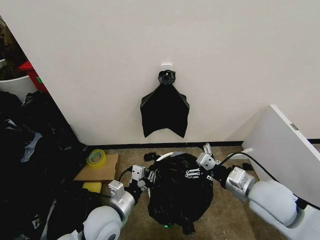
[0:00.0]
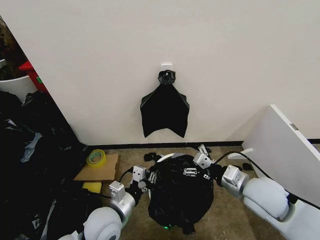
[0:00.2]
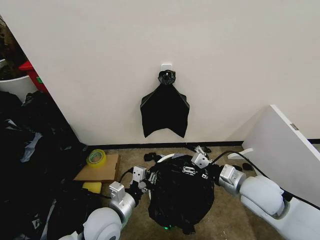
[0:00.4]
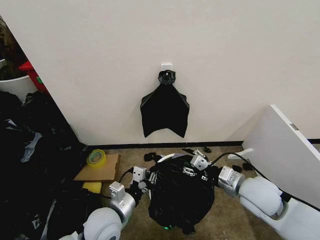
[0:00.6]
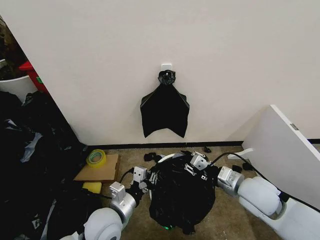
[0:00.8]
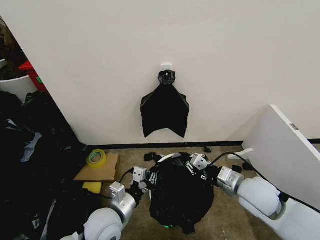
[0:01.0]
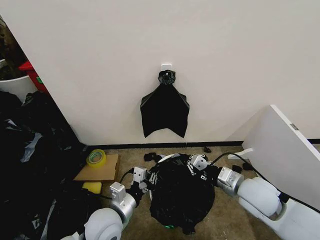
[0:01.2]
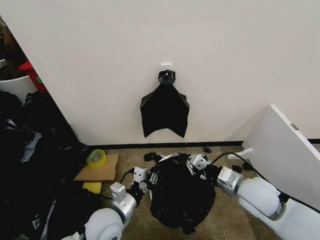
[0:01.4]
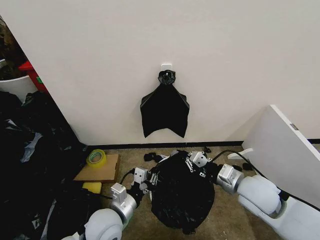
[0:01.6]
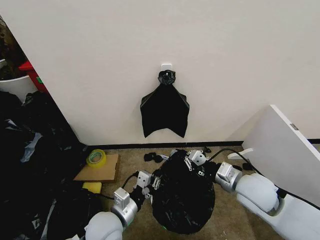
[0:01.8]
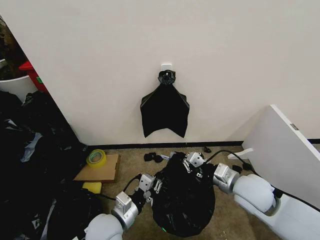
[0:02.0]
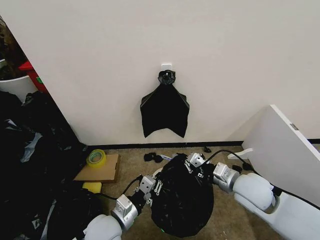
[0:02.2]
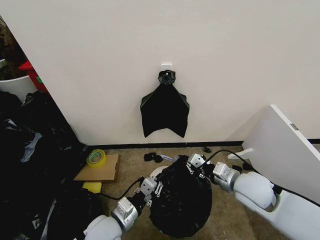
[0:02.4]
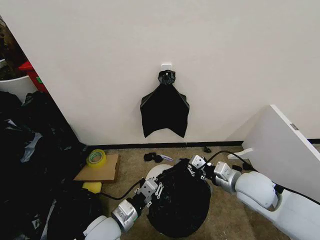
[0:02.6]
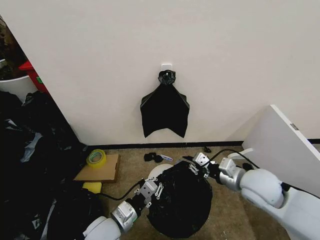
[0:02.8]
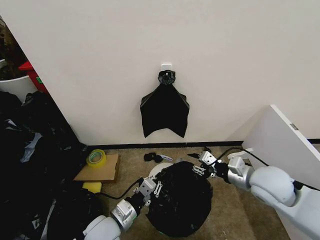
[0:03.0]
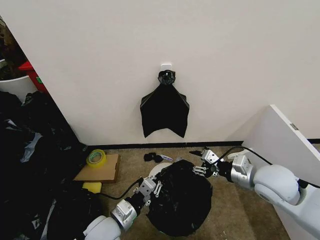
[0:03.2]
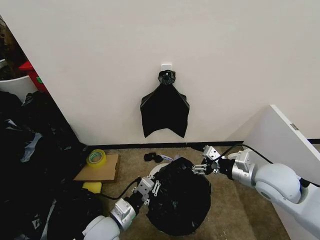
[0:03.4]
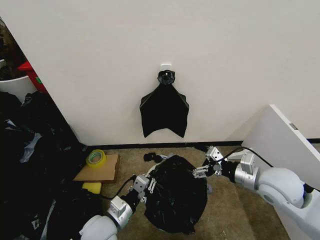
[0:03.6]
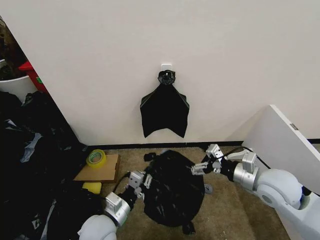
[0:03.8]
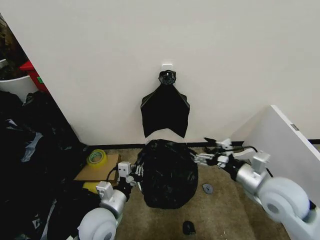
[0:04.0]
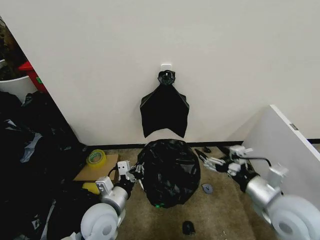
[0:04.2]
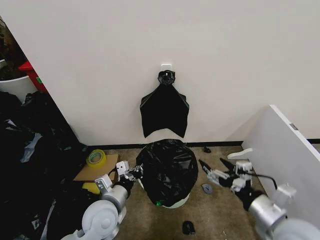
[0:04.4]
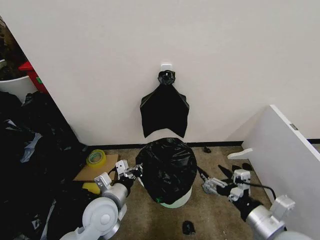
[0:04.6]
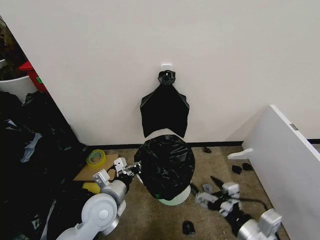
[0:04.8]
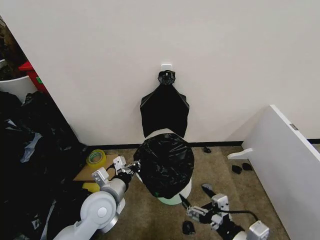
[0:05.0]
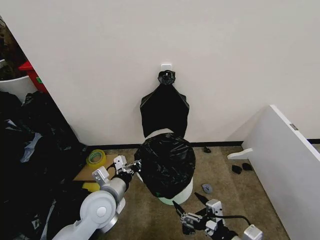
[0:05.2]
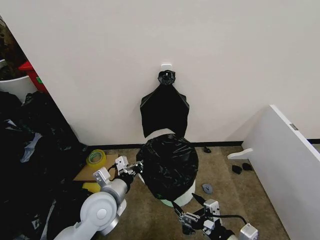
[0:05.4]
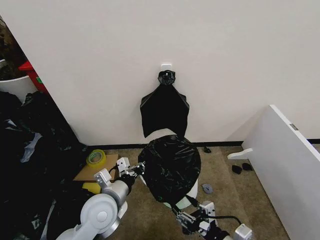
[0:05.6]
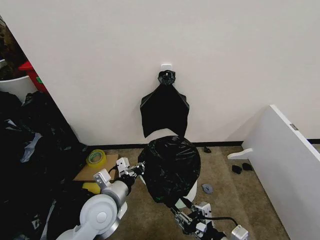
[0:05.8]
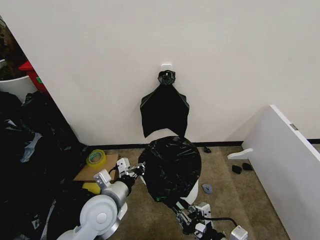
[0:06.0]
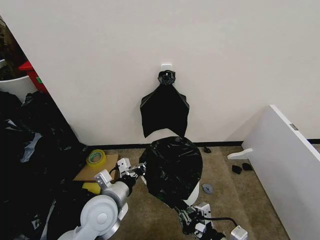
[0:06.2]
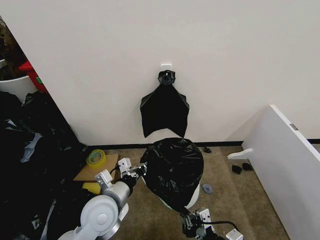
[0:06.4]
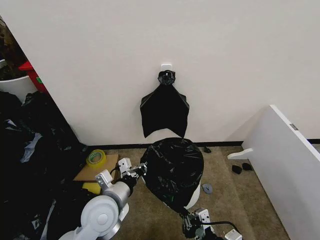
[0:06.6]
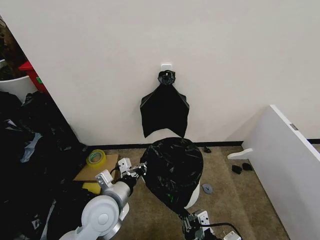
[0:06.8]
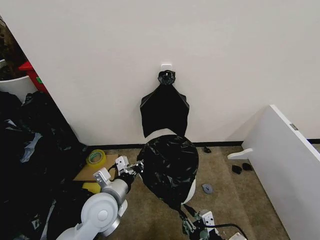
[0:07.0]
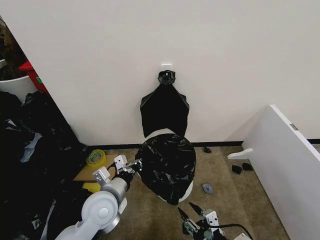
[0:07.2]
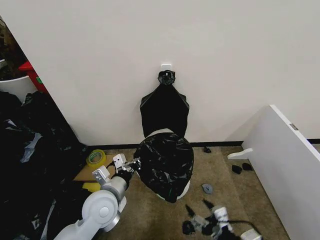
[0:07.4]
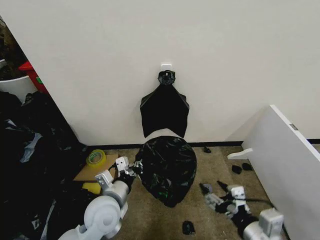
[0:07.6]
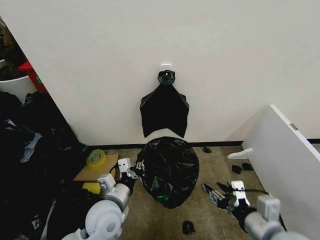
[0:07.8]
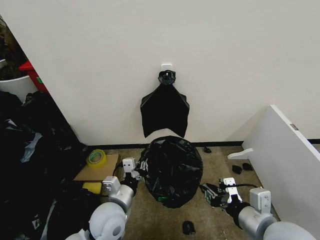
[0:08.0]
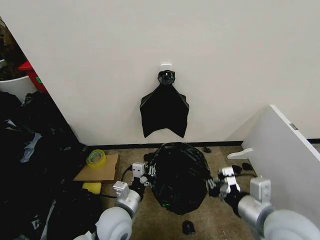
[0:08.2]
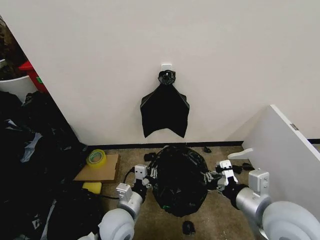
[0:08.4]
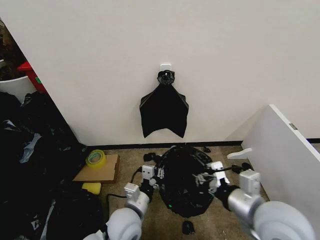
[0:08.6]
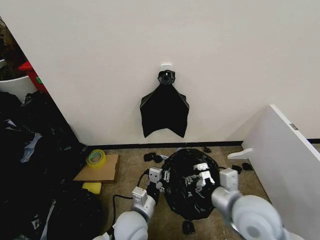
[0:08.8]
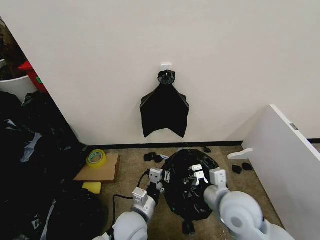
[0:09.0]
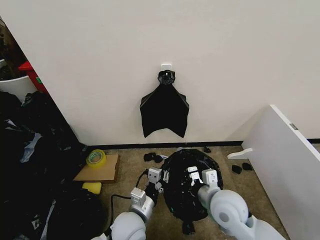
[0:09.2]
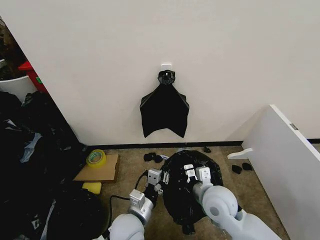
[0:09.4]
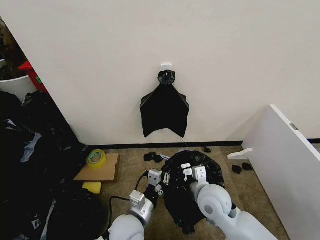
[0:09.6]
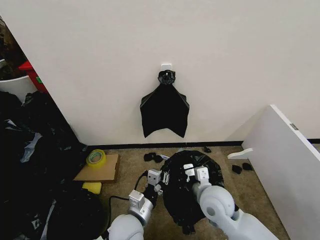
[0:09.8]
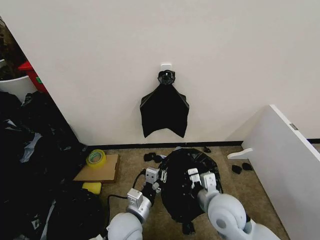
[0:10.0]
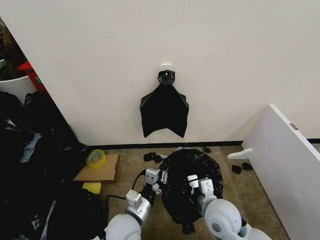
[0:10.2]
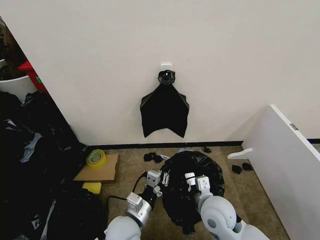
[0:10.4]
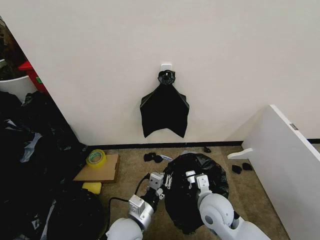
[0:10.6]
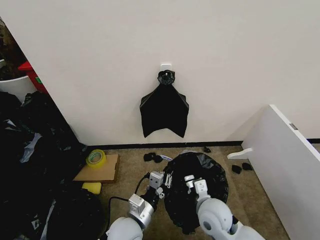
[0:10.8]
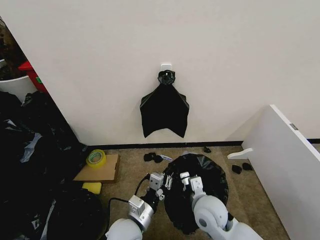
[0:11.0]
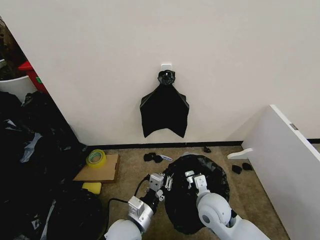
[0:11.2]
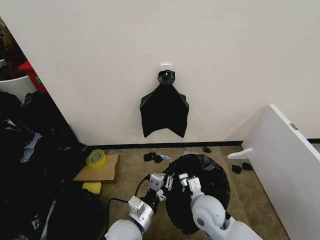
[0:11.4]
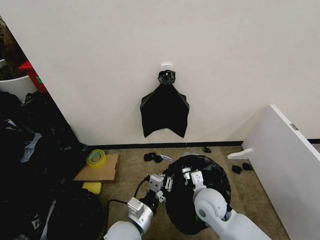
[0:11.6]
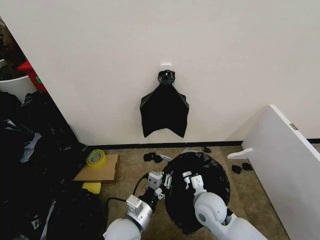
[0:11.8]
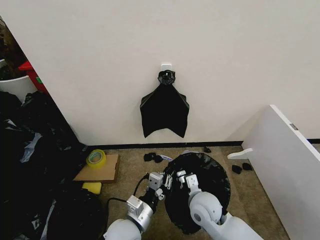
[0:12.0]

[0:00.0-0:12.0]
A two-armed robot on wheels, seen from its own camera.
Task of the whole recording: Place the garbage bag over the trash bin.
0:00.0 to 0:01.6: The right gripper closes its fingers.
0:03.0 to 0:04.4: The left gripper moves about 5 cm. The right gripper shifts approximately 15 cm backward, and opens its fingers.
0:04.4 to 0:06.0: The right gripper goes about 15 cm to the left, downward and backward, and closes.
0:06.0 to 0:07.6: The right gripper heads upward, covering roughly 5 cm, and opens up.
0:07.6 to 0:09.0: The right gripper moves forward and to the left, roughly 15 cm, and closes. Meanwhile the left gripper heads to the right and downward, covering approximately 10 cm.
0:09.0 to 0:10.4: The right gripper heads downward, covering about 5 cm.
0:10.4 to 0:12.0: There are only small adjustments of the grippers.

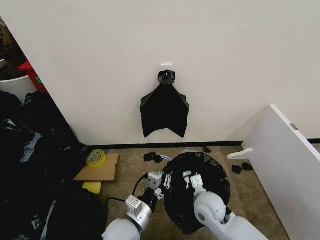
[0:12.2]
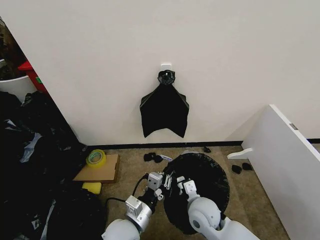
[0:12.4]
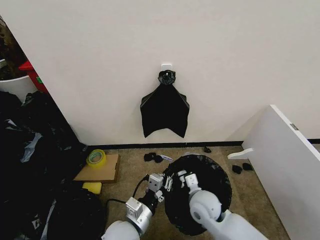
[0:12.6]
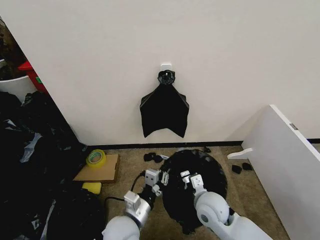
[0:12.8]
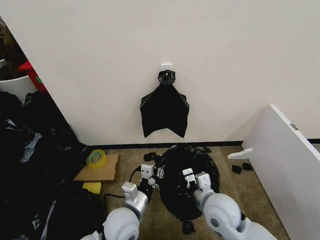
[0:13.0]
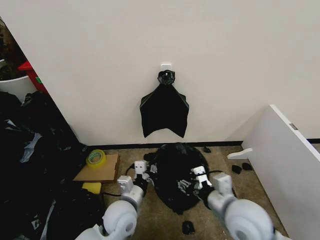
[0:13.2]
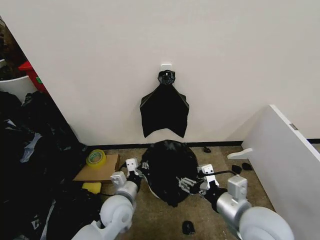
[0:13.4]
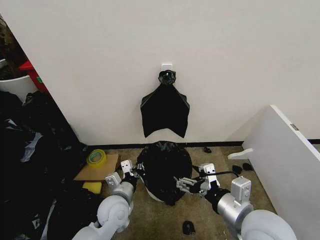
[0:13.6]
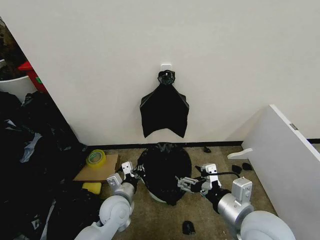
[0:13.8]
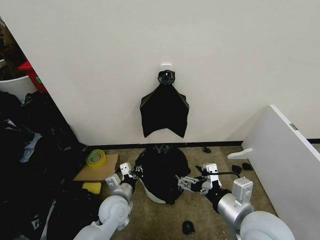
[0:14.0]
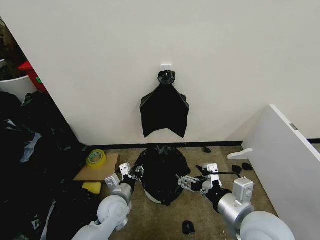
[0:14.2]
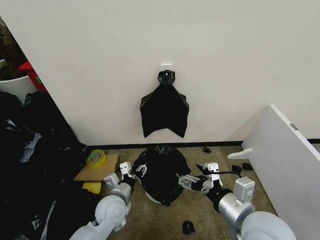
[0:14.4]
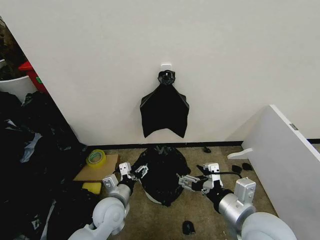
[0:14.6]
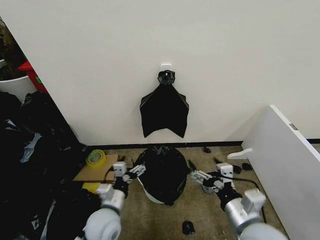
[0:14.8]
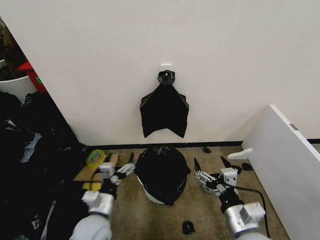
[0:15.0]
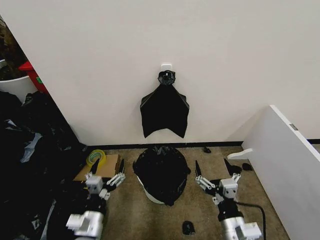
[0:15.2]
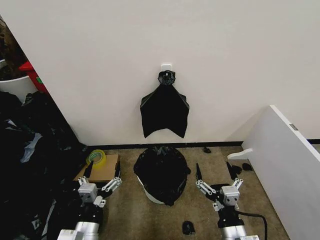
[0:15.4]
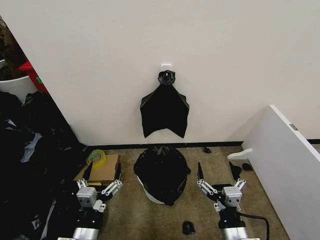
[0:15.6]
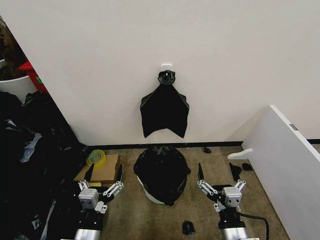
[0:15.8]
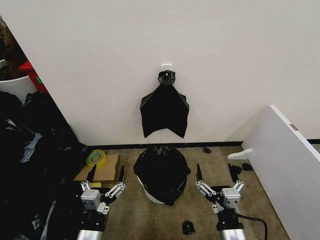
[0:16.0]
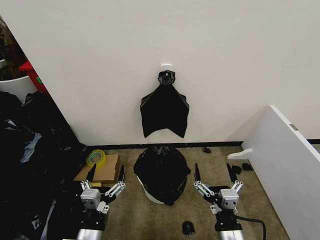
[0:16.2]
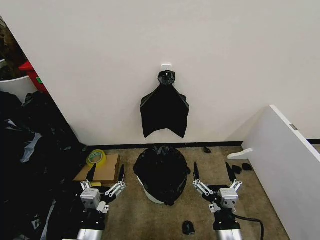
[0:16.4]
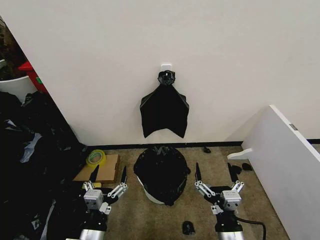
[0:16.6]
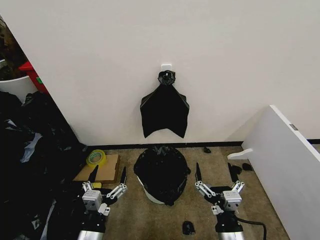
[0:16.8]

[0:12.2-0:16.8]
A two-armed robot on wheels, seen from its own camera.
Task of the whole recording: Place the garbage bag over the trash bin.
0:12.2 to 0:13.8: The left gripper moves forward, about 10 cm; the right gripper heads upward, backward and to the right, covering roughly 20 cm, and opens.
0:13.8 to 0:15.2: The right gripper is displaced downward by roughly 10 cm. The left gripper is displaced backward and to the left by some 15 cm, and opens.
0:15.2 to 0:16.8: The left gripper is displaced backward by about 5 cm.

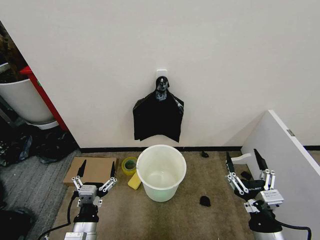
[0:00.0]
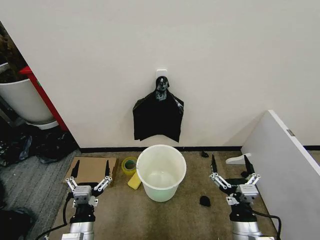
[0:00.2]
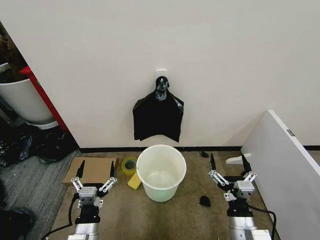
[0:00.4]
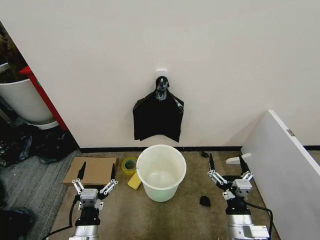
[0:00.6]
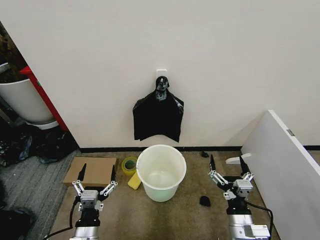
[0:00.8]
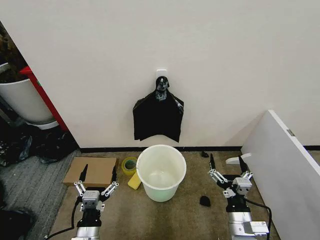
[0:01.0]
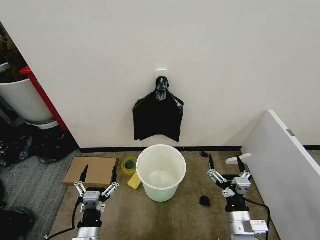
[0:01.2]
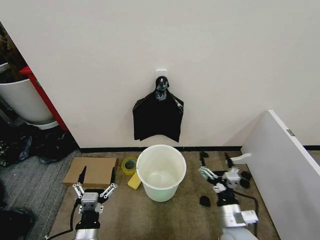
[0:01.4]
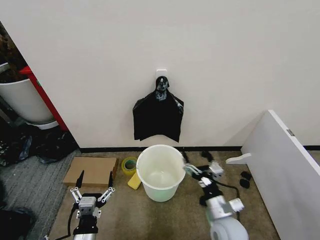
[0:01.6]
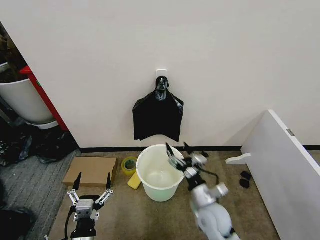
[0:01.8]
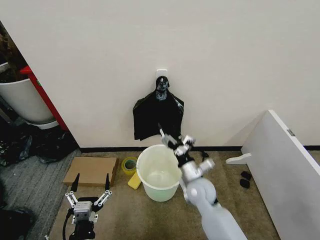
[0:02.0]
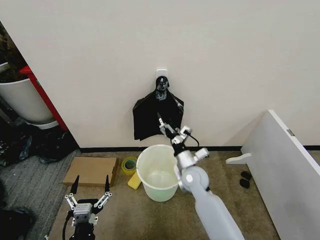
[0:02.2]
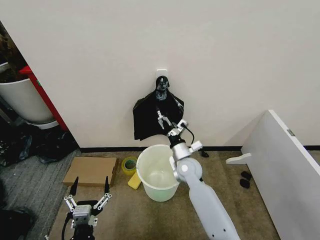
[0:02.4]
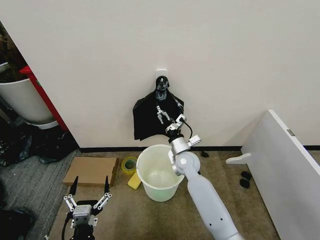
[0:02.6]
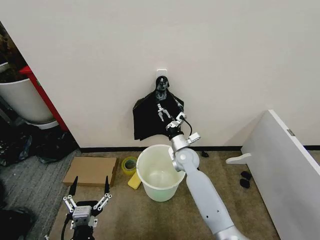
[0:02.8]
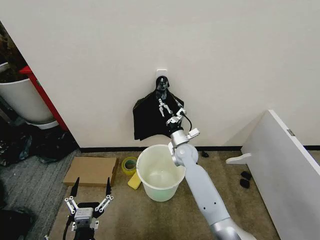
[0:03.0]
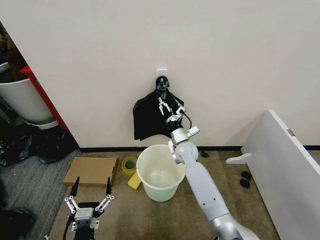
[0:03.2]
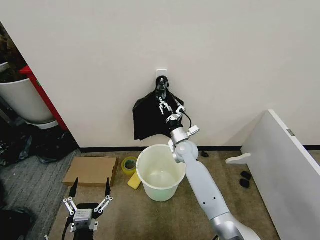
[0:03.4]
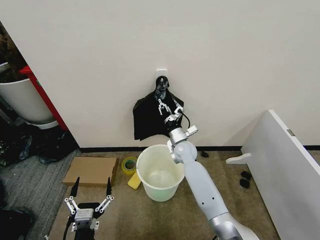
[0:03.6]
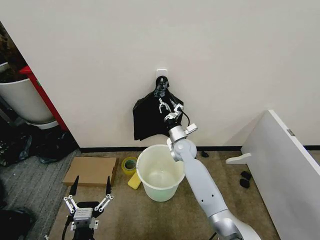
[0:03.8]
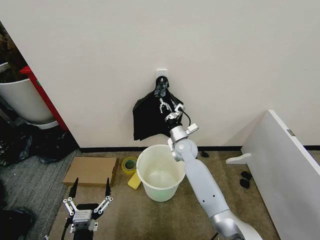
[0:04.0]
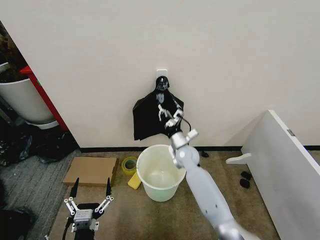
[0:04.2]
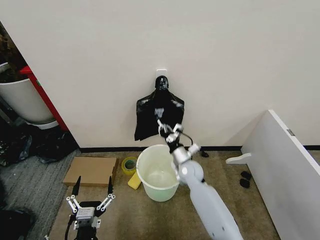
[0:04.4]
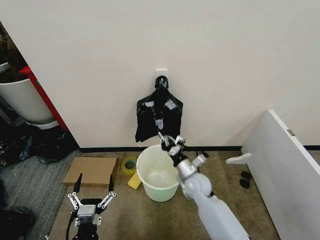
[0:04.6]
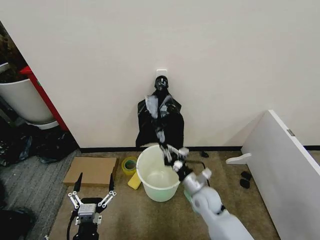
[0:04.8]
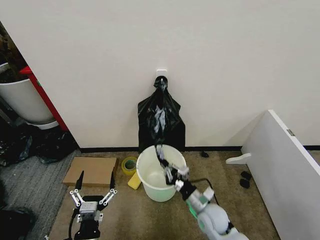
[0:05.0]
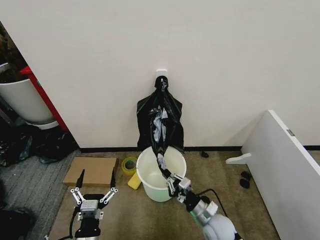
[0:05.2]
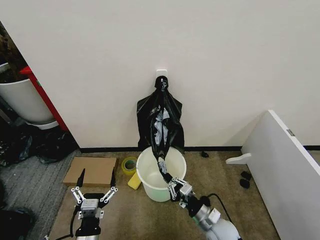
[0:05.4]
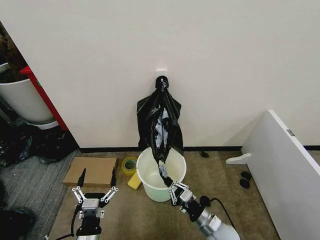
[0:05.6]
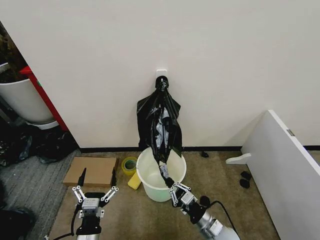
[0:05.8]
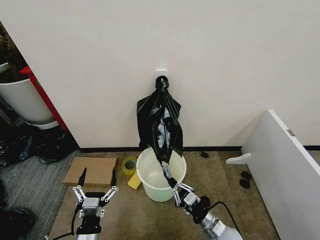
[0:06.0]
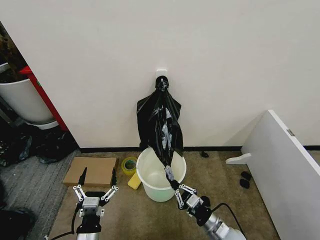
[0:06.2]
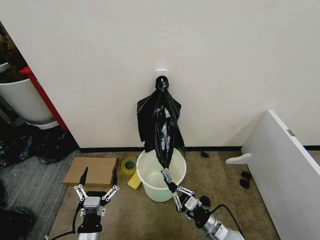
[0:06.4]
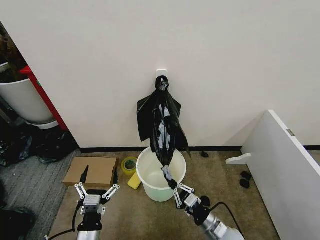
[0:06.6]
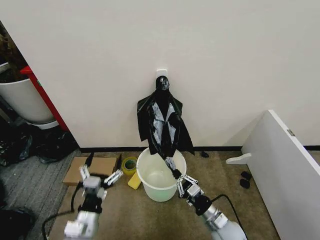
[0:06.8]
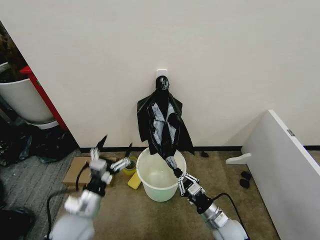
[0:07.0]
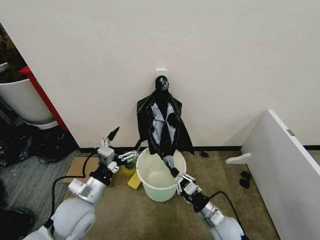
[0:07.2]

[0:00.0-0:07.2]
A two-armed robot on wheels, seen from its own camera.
Task of the whole recording: Place the garbage bag over the trash bin.
0:01.4 to 0:02.8: The right gripper moves forward and to the left, roughly 30 cm.
0:02.8 to 0:04.4: The right gripper changes place by about 5 cm, and closes up.
0:04.4 to 0:05.8: The right gripper moves backward, some 20 cm.
0:05.8 to 0:07.2: The left gripper heads forward and upward, covering some 15 cm.
